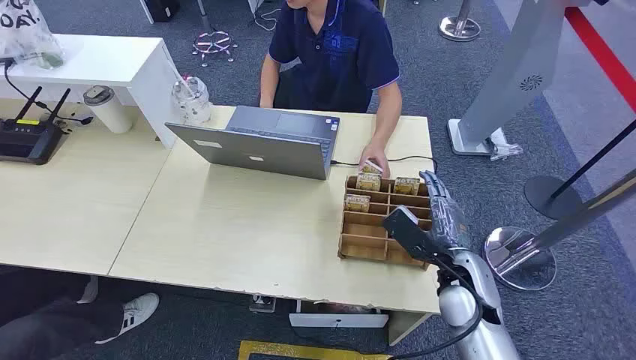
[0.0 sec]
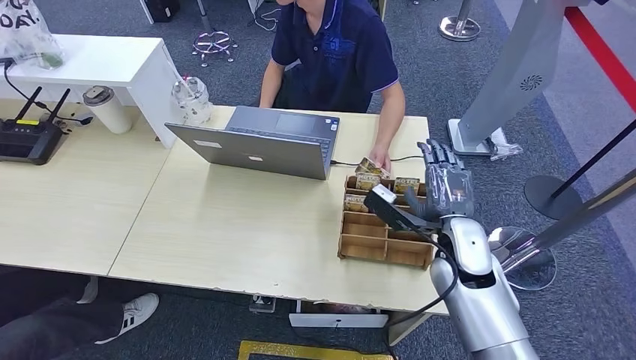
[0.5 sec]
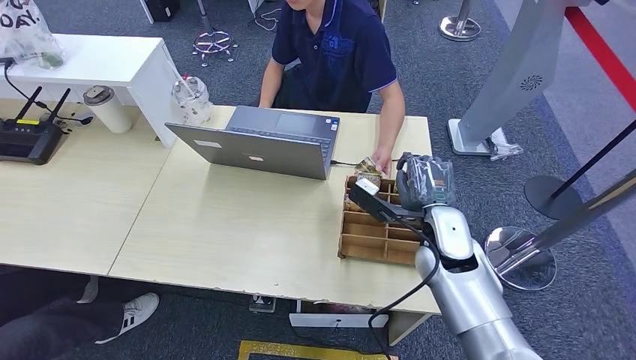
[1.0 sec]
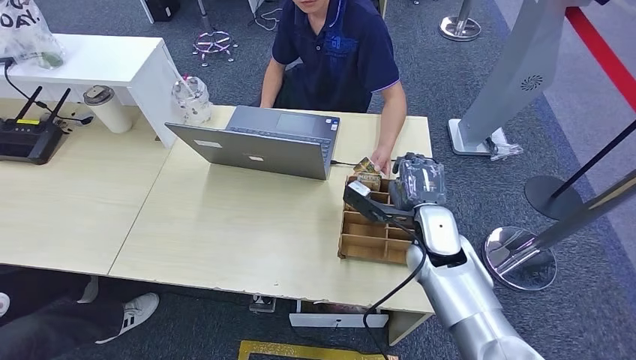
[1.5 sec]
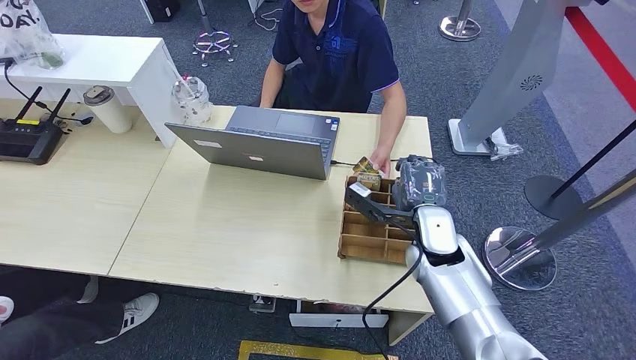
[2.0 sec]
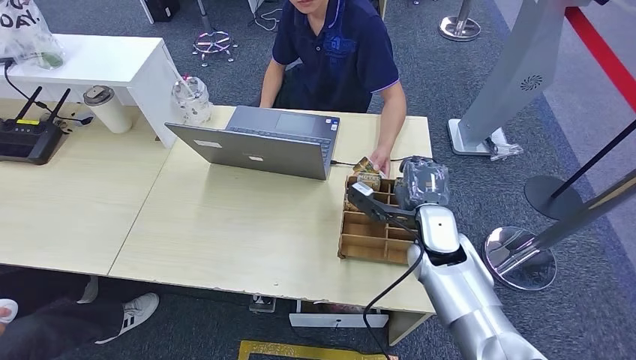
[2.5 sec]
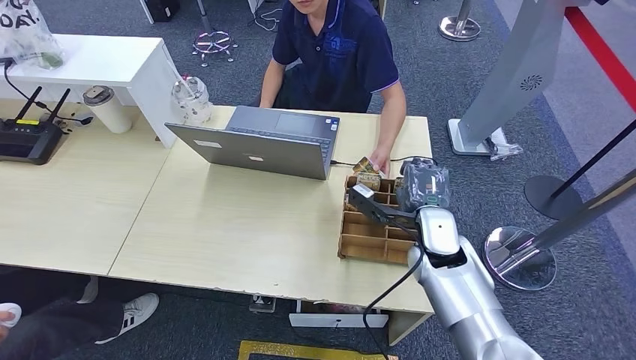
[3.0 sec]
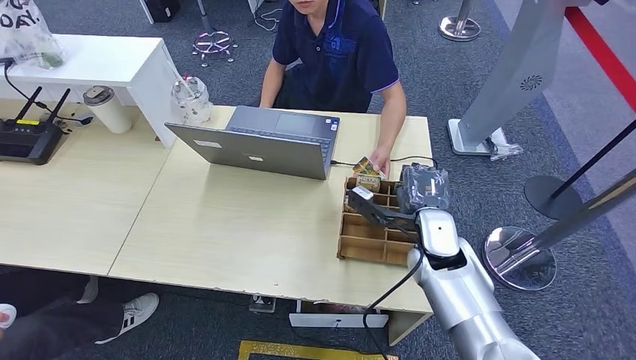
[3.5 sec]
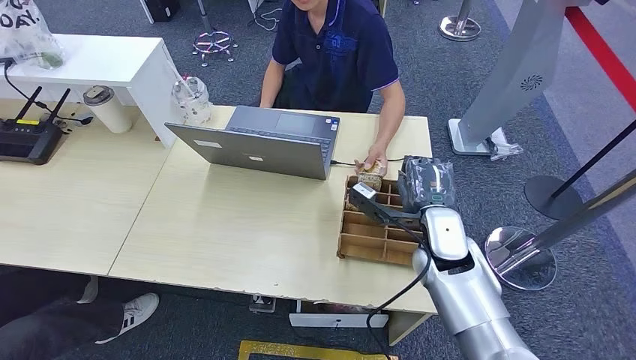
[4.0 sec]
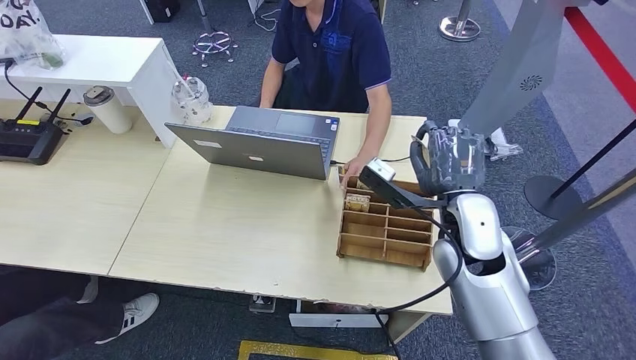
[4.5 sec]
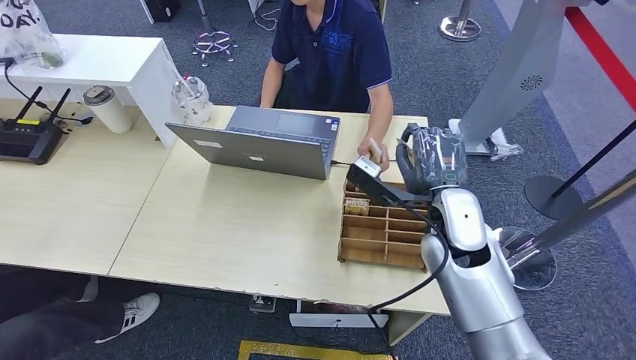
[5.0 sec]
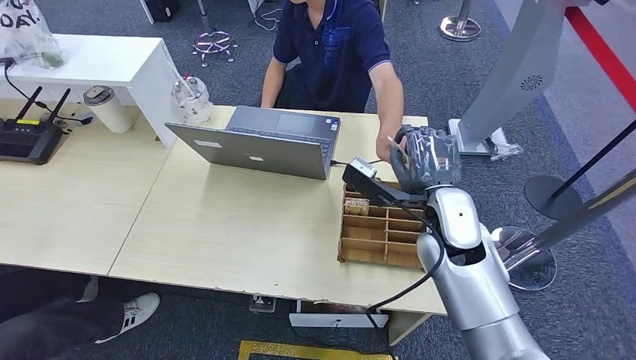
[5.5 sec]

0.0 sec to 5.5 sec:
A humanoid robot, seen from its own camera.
Step, 0.0 sec to 4.0 sec: Pick up the key card from the card box.
Step, 4.5 sec to 5.5 sec: Hand the key card to the target.
2.0 sec to 3.5 sec: Neither hand changes place.
3.5 sec to 5.5 sec: The right hand heads upward, covering roughly 5 cm.
